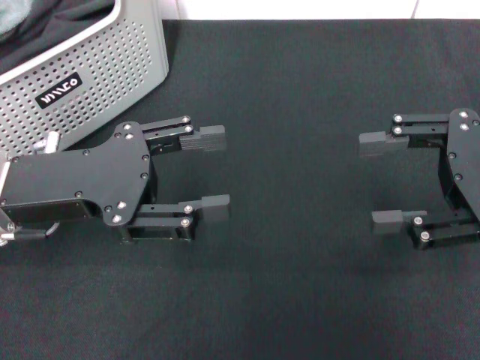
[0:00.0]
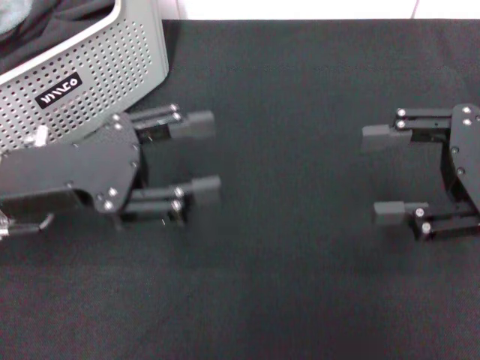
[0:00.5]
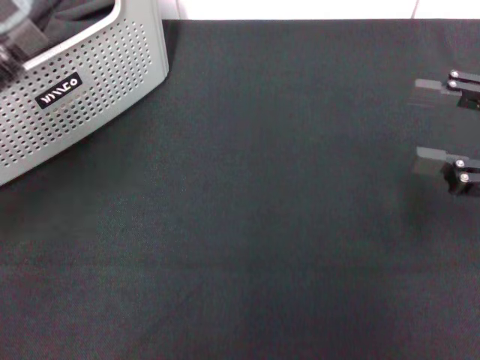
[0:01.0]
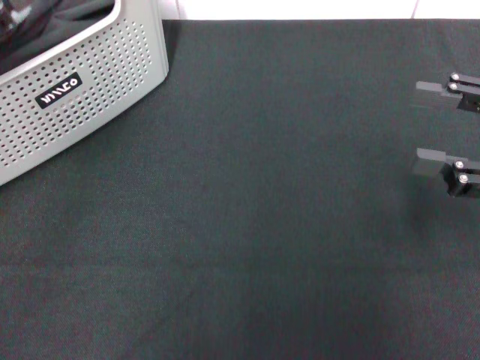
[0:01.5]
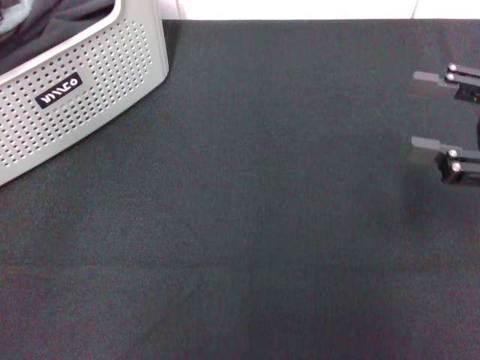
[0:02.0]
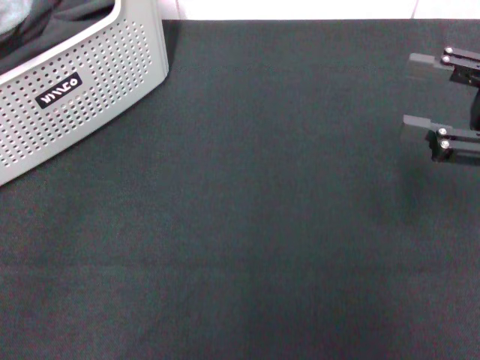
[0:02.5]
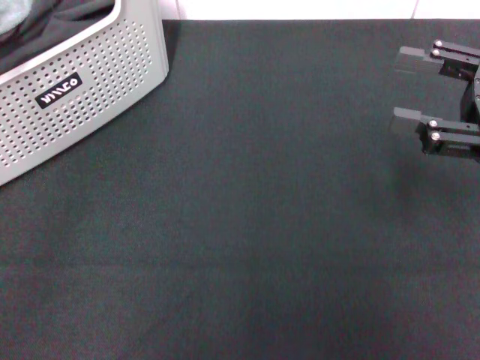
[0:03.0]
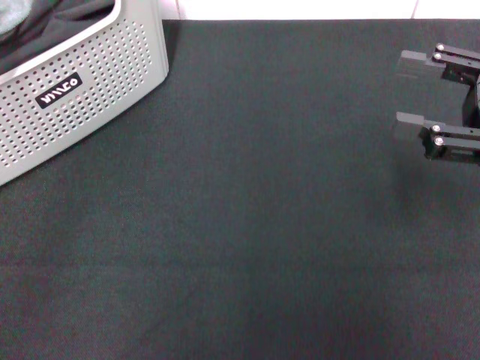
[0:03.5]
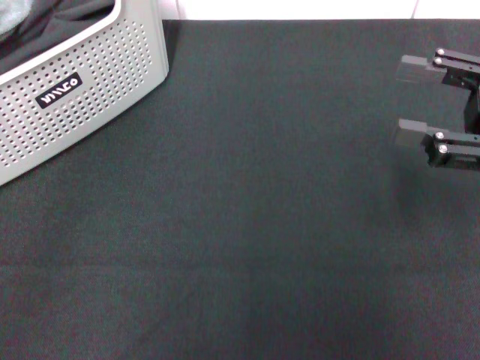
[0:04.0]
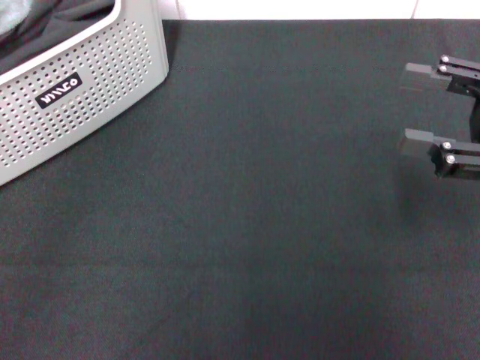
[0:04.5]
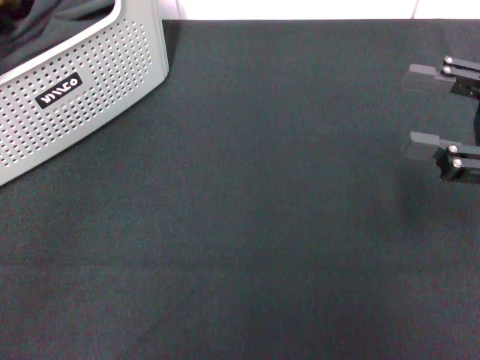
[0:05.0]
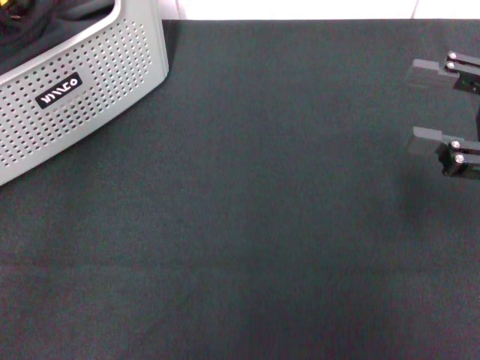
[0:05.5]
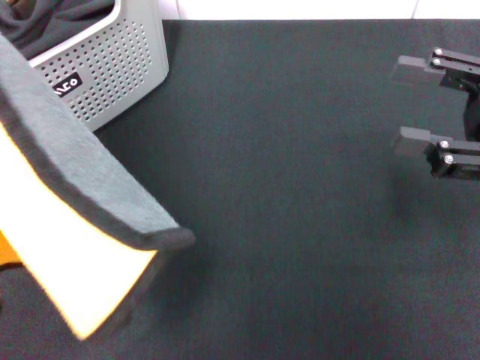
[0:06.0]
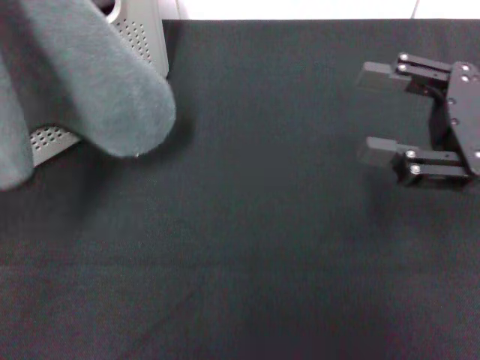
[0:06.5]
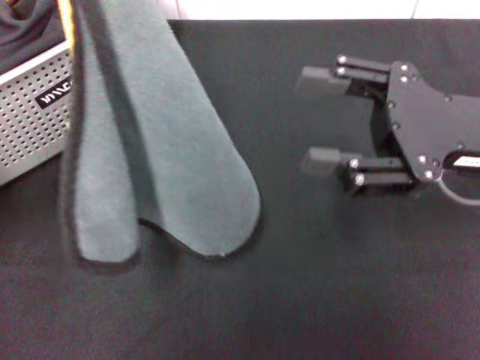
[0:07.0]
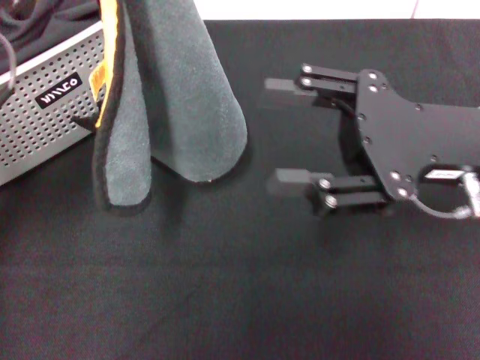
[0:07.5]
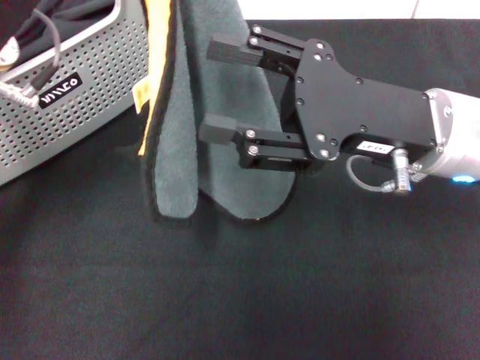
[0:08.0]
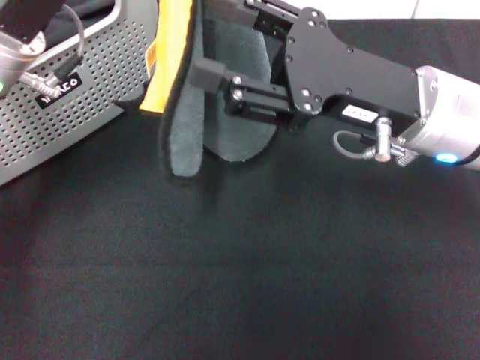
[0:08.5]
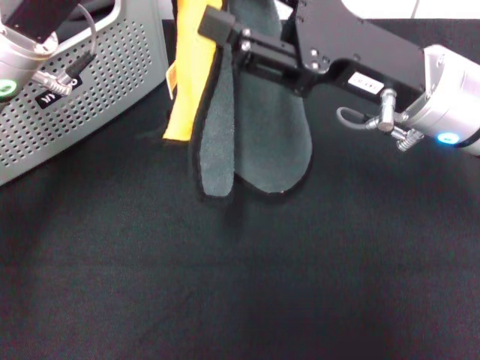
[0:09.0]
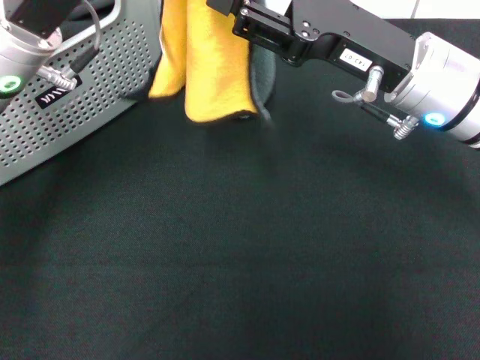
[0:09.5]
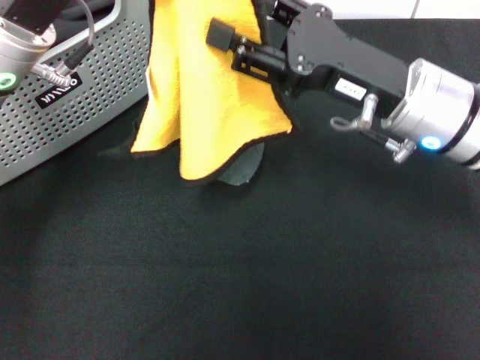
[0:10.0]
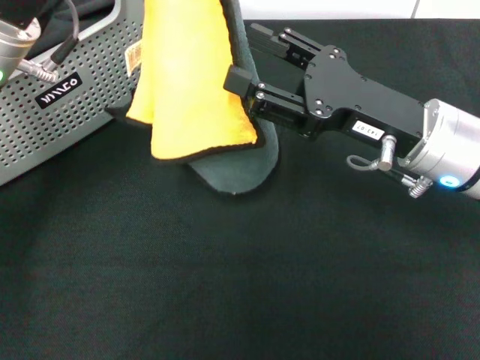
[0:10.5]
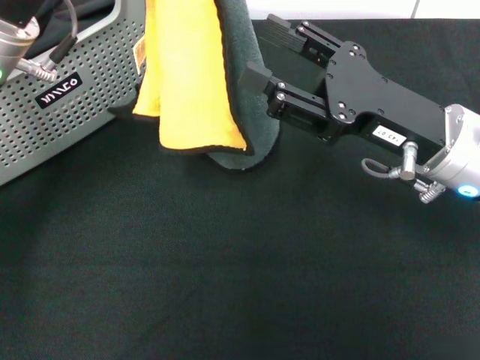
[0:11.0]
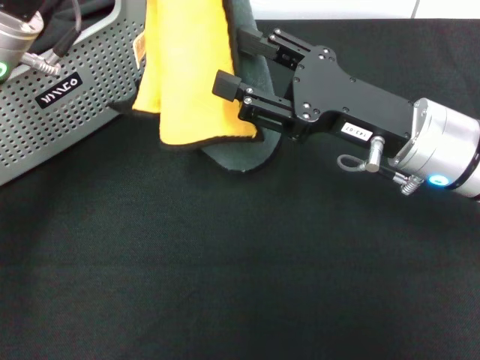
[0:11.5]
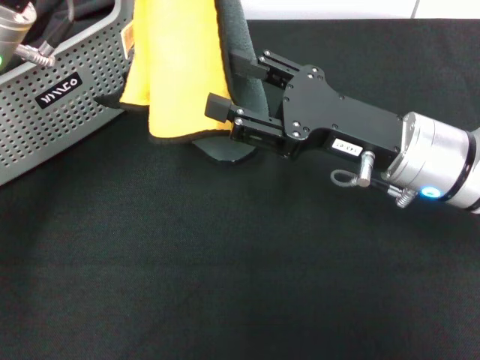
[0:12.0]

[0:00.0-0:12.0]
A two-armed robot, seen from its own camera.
Task of the whole recording: pick up the towel from the storage box and lay it flat on the black tablecloth.
Step, 0:00.0 to 0:04.5: Pick up a towel with the left gripper.
0:00.0 to 0:02.0: The left gripper moves to the left and upward, roughly 15 cm.
0:02.0 to 0:04.0: The grippers stay close to where they were, moving slightly.
0:04.0 to 0:06.0: The left gripper goes roughly 10 cm upward and backward, and closes.
0:06.0 to 0:08.0: The left gripper is displaced to the right, forward and downward by roughly 20 cm. The right gripper is displaced to the left by about 15 cm.

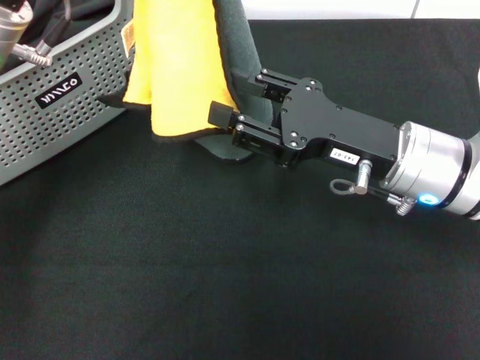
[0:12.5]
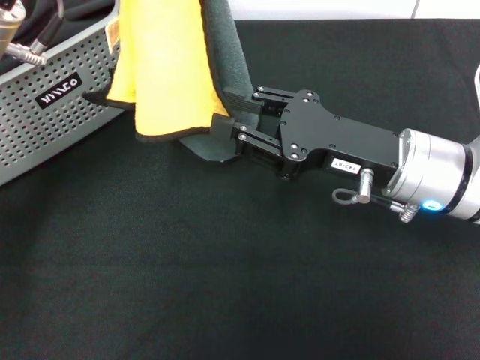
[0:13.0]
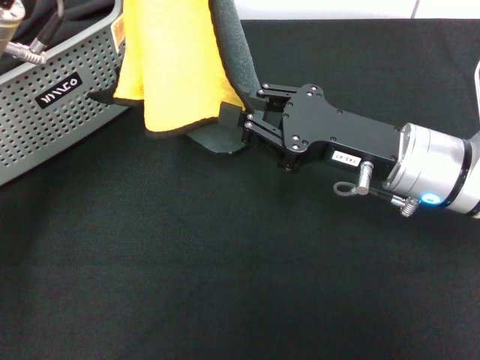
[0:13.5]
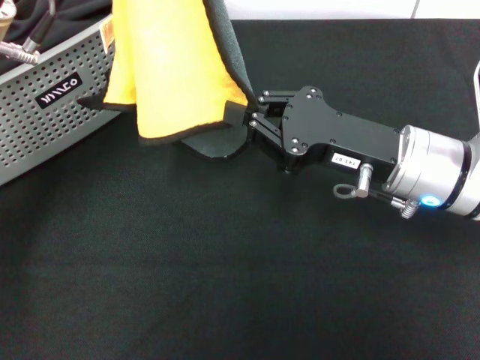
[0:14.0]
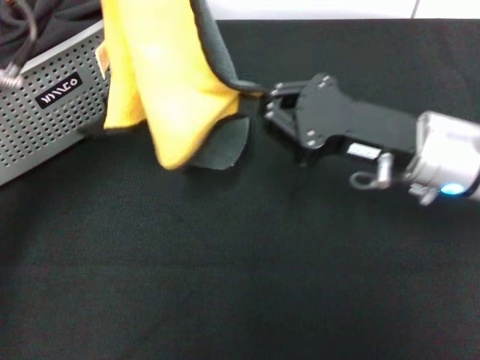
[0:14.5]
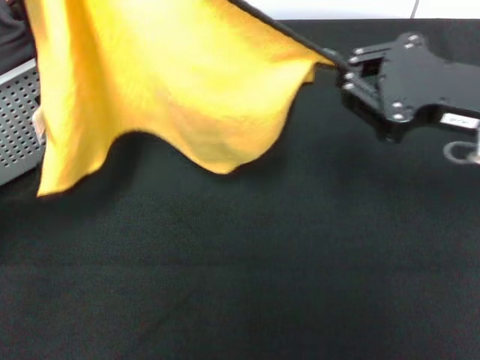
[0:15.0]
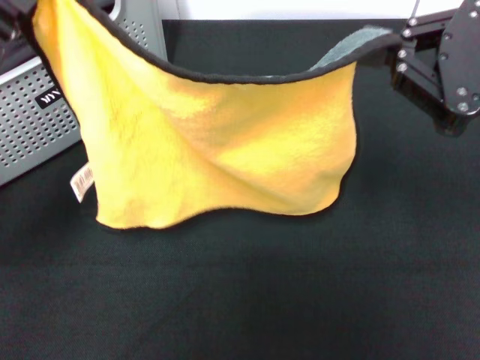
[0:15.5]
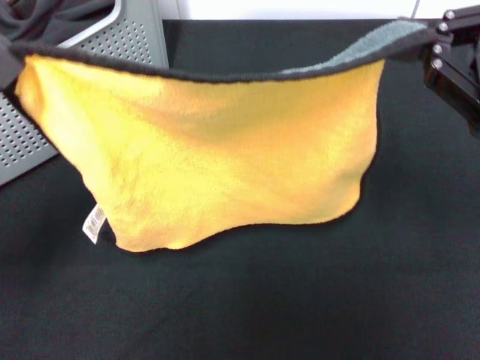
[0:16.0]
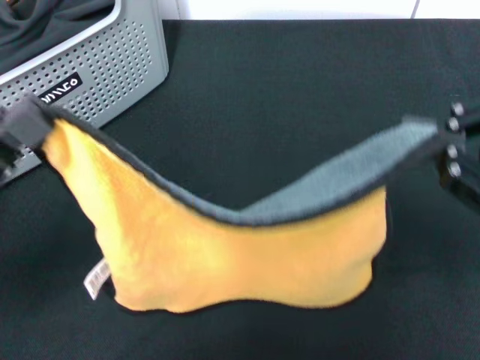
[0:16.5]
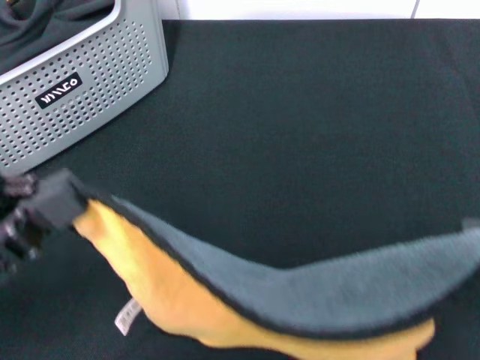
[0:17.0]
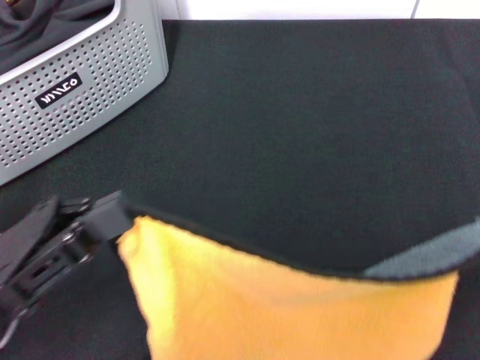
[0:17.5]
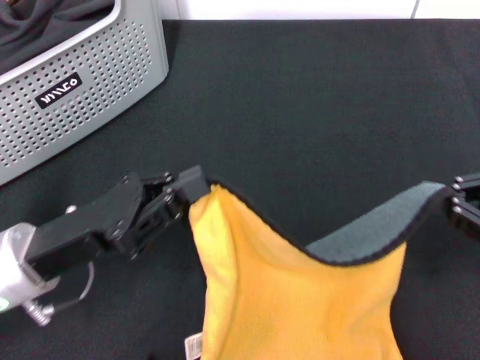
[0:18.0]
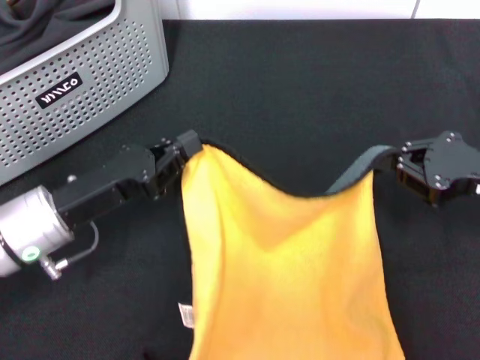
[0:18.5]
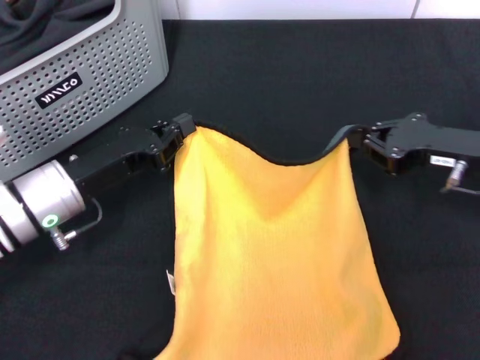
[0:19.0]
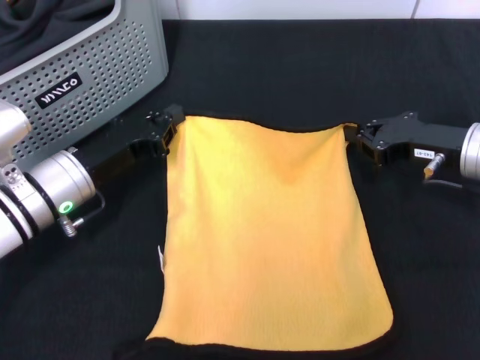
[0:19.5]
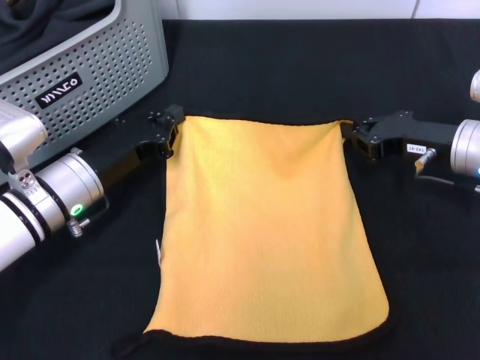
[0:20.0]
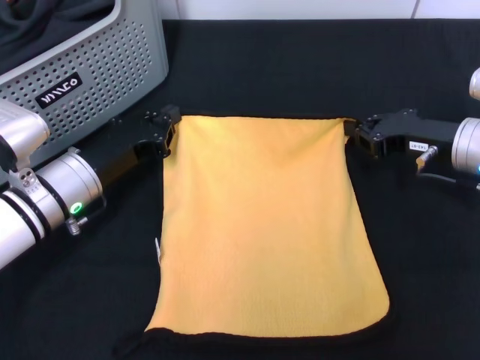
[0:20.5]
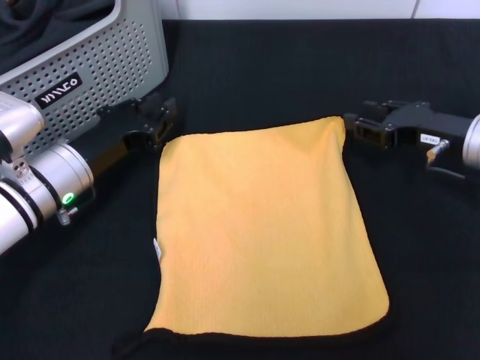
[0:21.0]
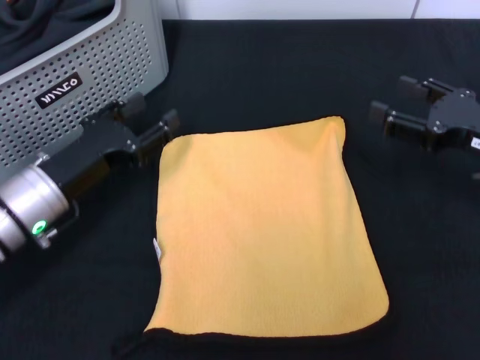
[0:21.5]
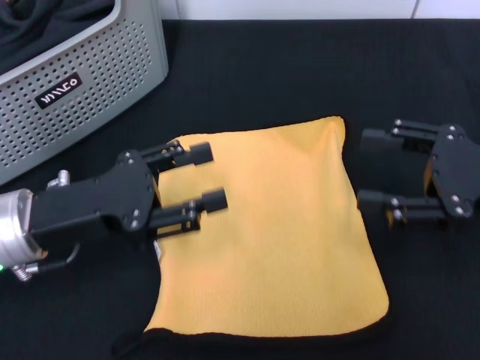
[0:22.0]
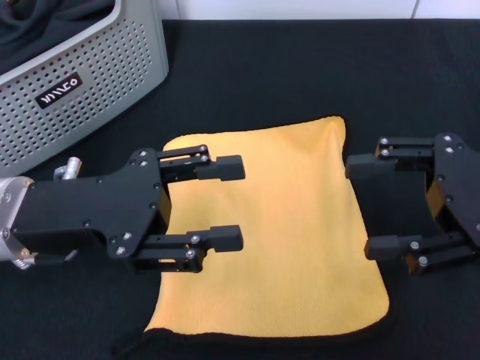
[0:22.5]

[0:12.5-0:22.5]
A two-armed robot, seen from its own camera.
Task of the whole recording: pick up the towel from the storage box and lay it flat on the black tablecloth.
Step, 0:14.5 to 0:20.5: Spread the towel flat with the right gripper.
0:12.5 to 0:14.5: The right gripper closes.
0:14.5 to 0:16.5: The left gripper moves backward and to the left, roughly 15 cm, while the right gripper moves upward, backward and to the right, some 20 cm.
0:16.5 to 0:18.5: The left gripper goes approximately 15 cm downward, forward and to the right, while the right gripper shifts about 15 cm downward and forward.
0:18.5 to 0:20.5: The grippers both shift forward by approximately 5 cm.
0:20.5 to 0:22.5: The grippers both shift upward and backward by roughly 15 cm. The right gripper opens up; the left gripper opens its fingers.
